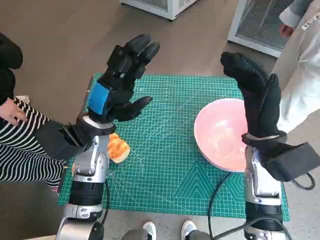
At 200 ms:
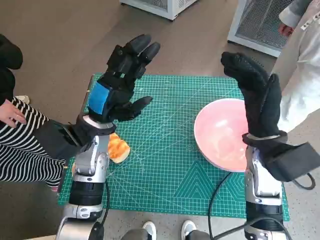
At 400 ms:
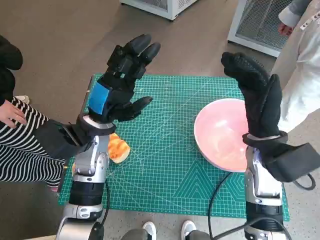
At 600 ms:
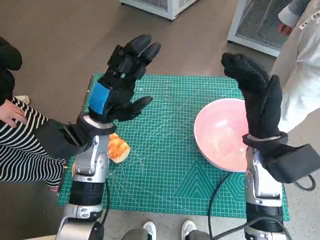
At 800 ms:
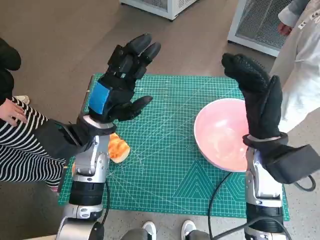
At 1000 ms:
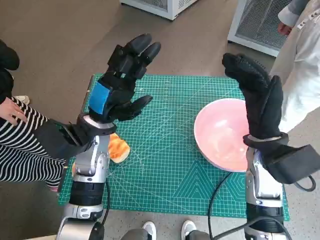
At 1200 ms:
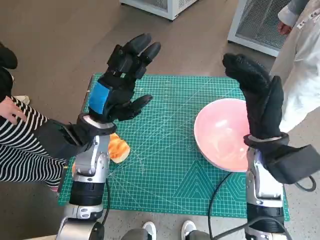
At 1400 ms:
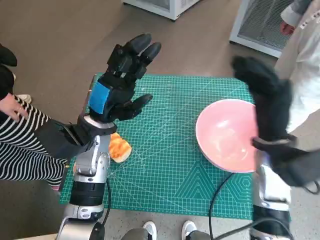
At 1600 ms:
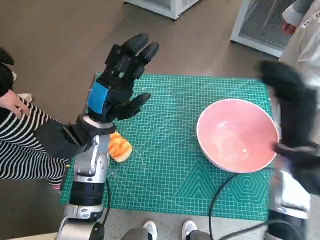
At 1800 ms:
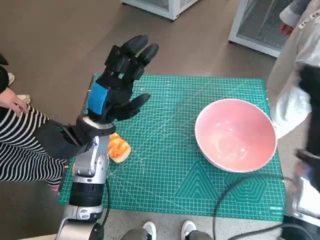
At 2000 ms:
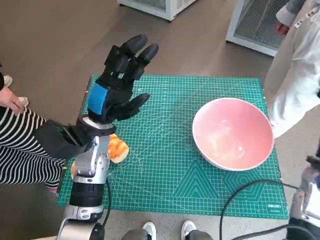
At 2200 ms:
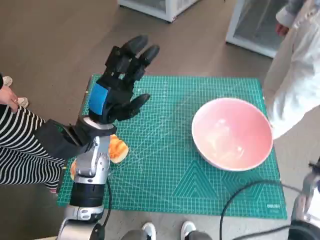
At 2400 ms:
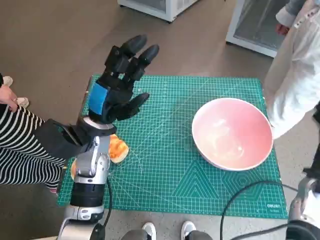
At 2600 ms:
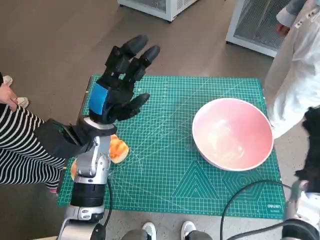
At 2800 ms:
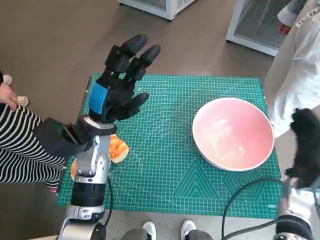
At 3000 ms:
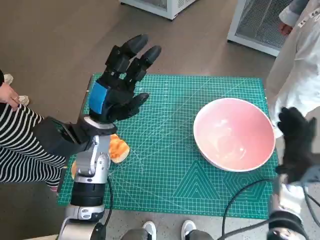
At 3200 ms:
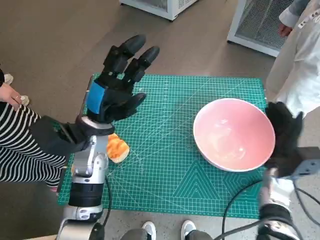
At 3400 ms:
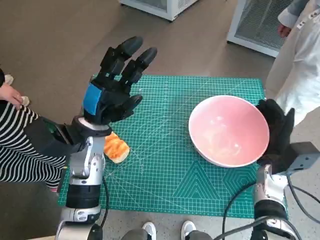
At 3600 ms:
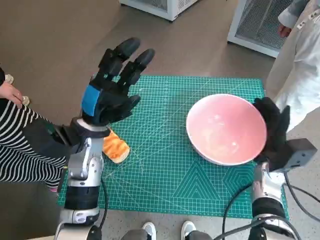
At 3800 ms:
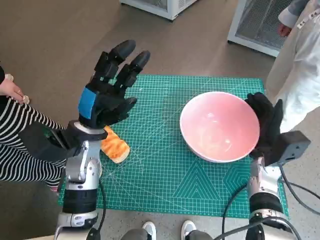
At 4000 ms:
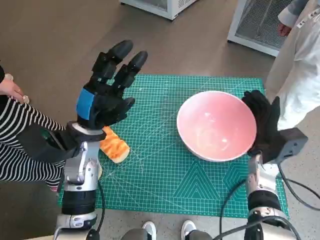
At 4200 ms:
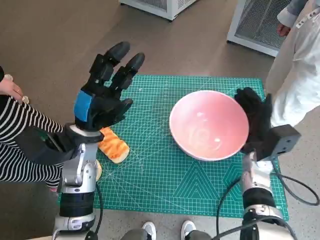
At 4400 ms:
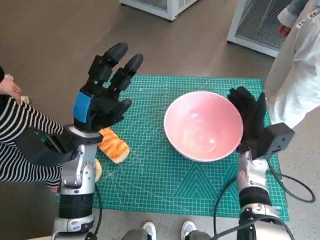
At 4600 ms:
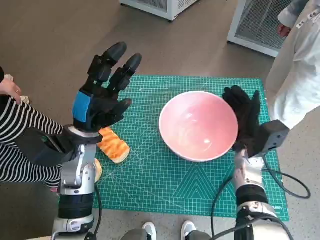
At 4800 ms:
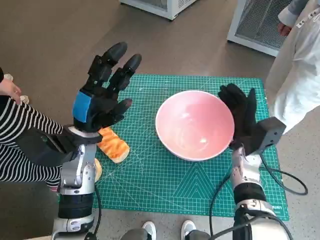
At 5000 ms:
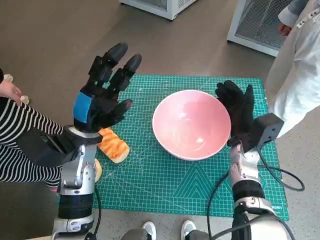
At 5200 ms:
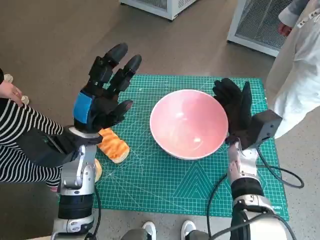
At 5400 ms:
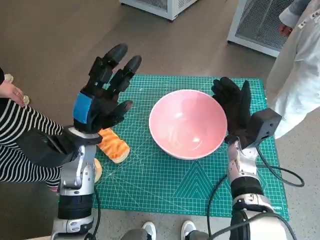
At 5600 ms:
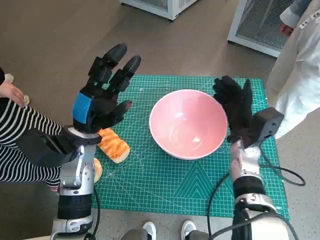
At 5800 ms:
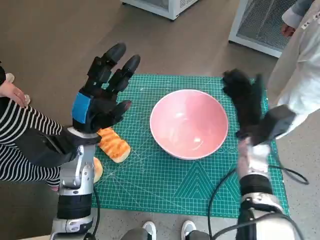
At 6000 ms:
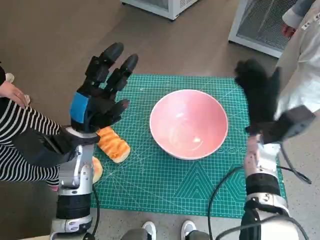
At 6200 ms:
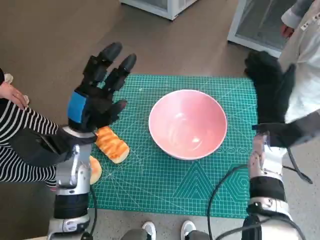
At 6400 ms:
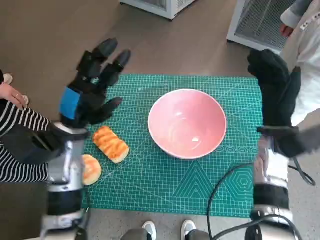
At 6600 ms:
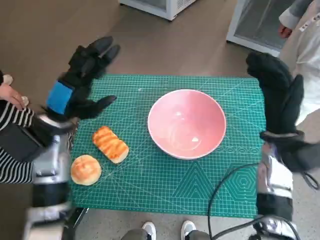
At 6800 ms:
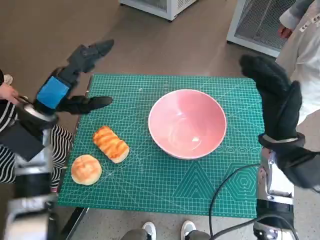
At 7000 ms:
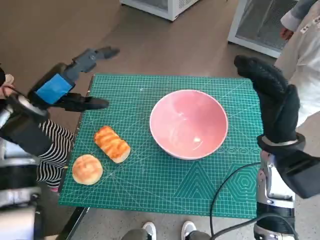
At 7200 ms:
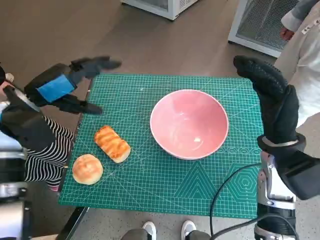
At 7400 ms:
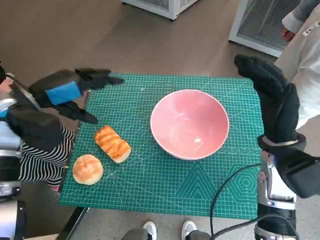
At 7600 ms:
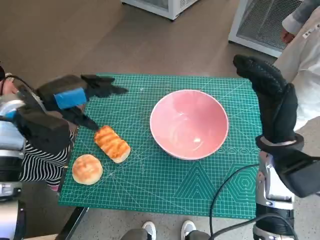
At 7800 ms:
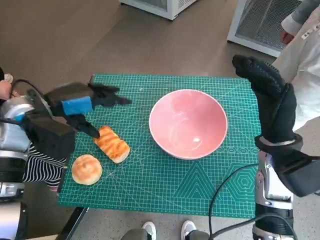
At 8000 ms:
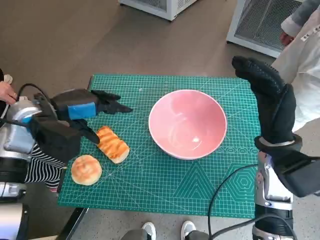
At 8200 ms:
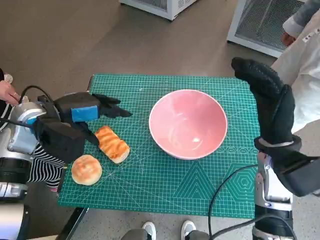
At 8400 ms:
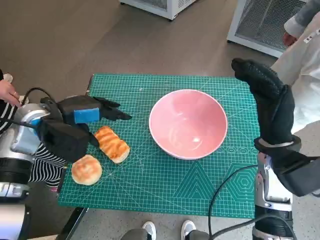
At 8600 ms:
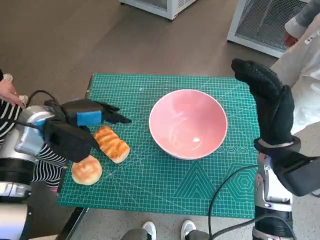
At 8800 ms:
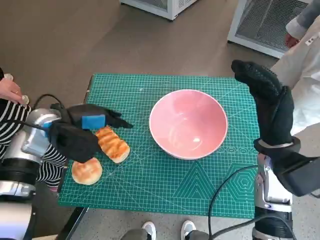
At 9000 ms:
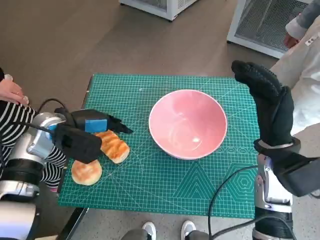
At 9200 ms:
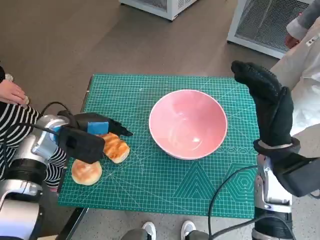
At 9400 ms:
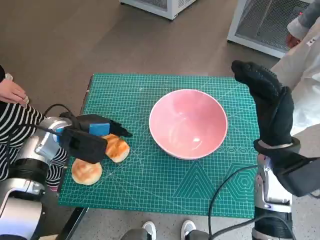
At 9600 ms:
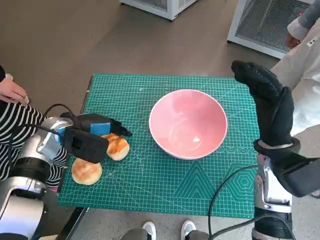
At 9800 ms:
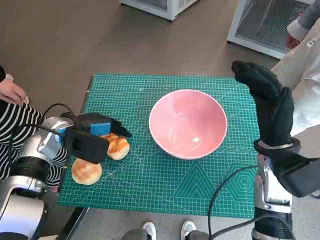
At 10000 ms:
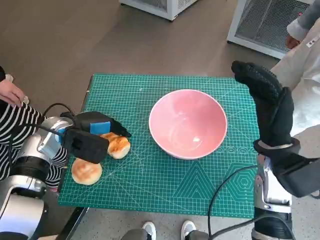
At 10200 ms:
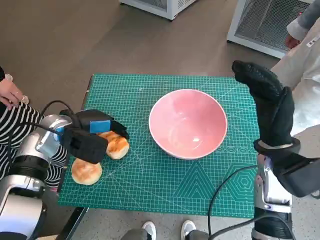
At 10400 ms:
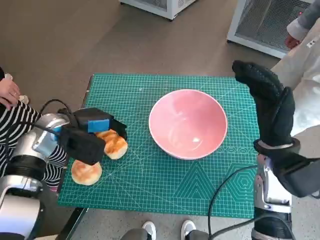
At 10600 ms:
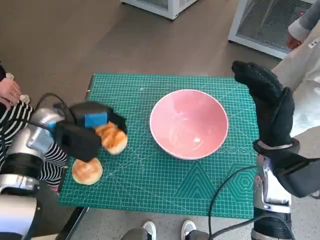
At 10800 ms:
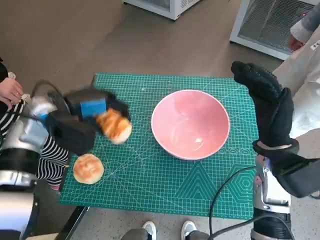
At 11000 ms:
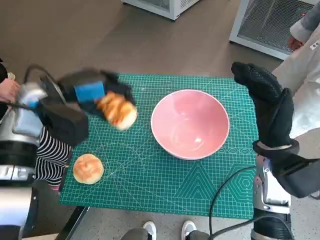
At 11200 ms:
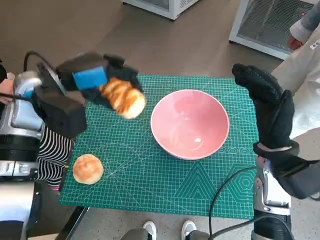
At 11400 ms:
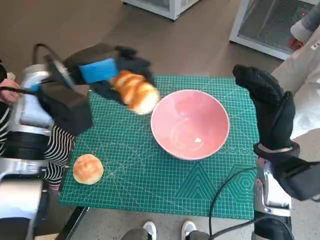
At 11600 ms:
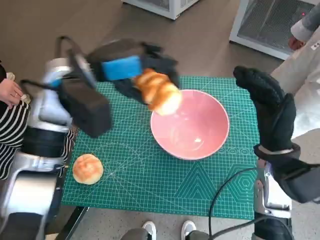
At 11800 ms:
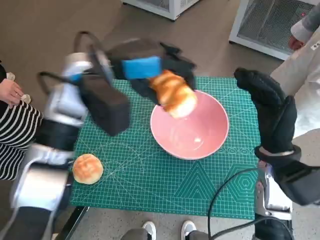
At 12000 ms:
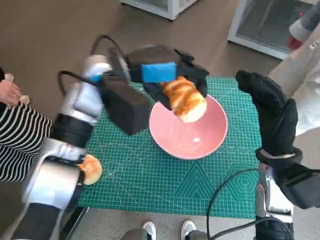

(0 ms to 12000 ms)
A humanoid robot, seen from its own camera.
Task of the whole recording: Push the bowl into the center of the table and put the bread into the bowl.
Step, 0 ms - 5600 ms: Move the pink bowl to the center of table with right hand.
Step, 6000 ms - 10200 ms: Grasp the long bread with left hand.
1600 ms - 3000 ms: The right hand heads downward and to the right, covering about 15 cm.
3000 ms - 4400 ms: The right hand heads to the left, covering some 10 cm.
4400 ms - 6000 ms: The right hand moves approximately 5 cm.
6000 ms - 7600 ms: The left hand is displaced upward and to the left by roughly 10 cm, while the right hand moves upward and backward, some 10 cm.
7600 ms - 9000 ms: The left hand shifts some 5 cm downward.
9000 ms - 10400 ms: The hands stay close to where they were, moving slightly.
10400 ms - 12000 ms: The left hand heads upward and to the right, covering approximately 20 cm.

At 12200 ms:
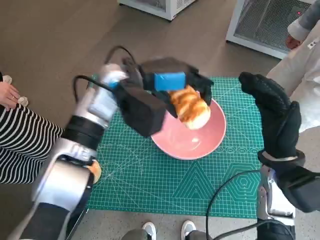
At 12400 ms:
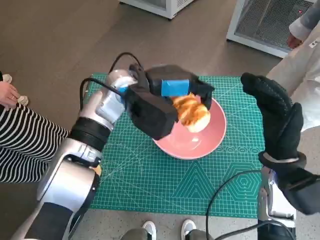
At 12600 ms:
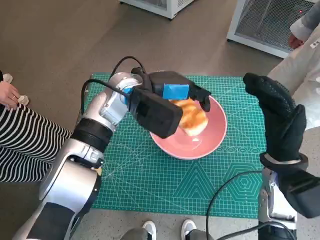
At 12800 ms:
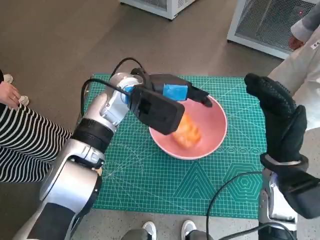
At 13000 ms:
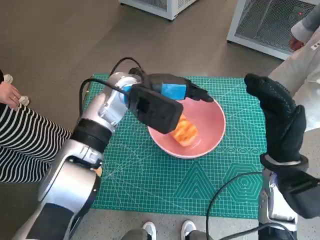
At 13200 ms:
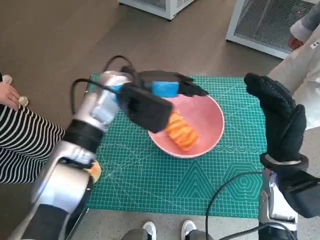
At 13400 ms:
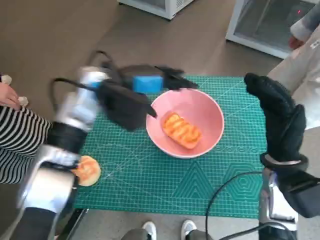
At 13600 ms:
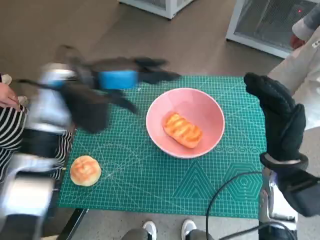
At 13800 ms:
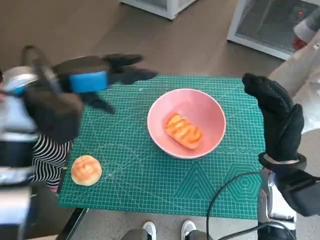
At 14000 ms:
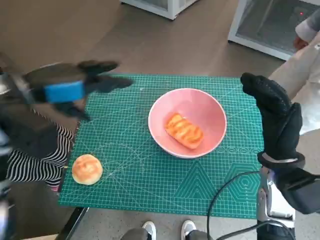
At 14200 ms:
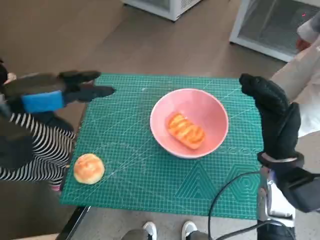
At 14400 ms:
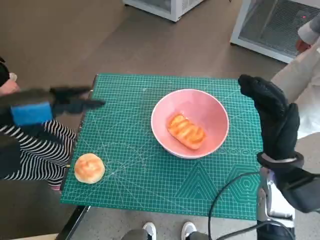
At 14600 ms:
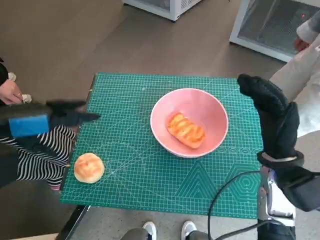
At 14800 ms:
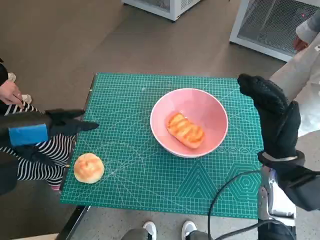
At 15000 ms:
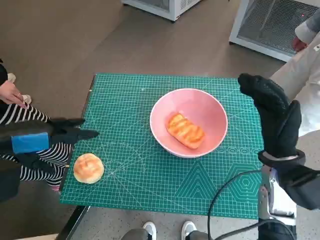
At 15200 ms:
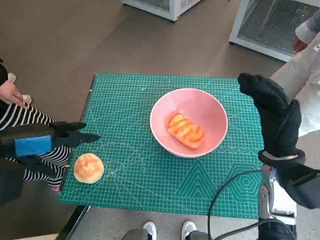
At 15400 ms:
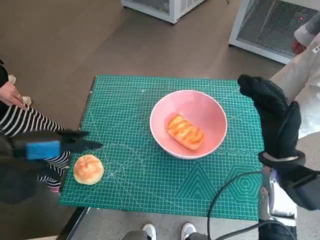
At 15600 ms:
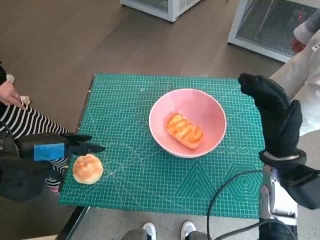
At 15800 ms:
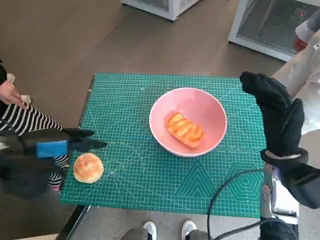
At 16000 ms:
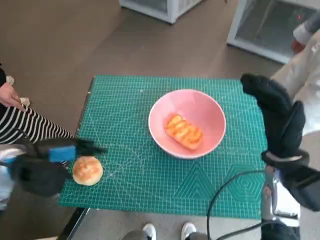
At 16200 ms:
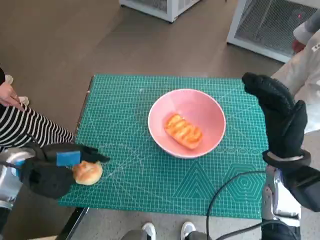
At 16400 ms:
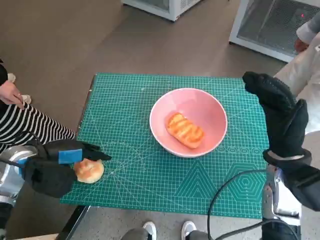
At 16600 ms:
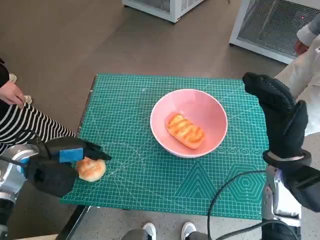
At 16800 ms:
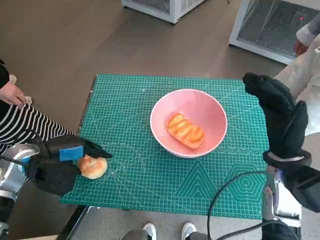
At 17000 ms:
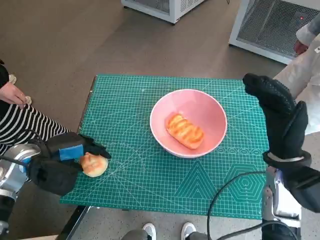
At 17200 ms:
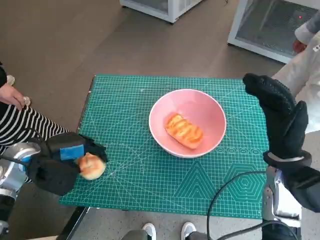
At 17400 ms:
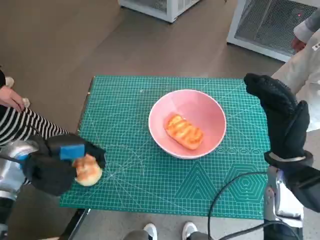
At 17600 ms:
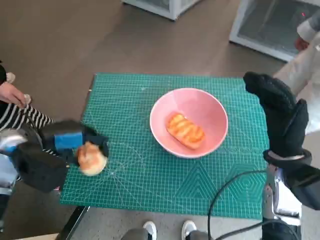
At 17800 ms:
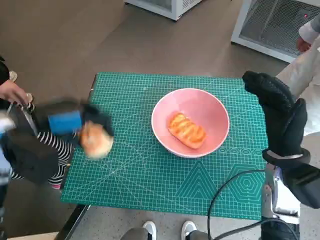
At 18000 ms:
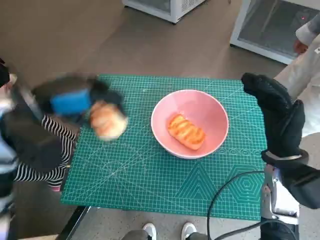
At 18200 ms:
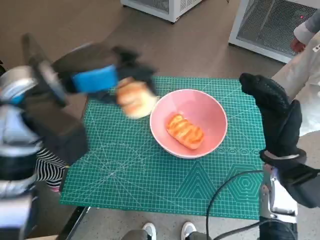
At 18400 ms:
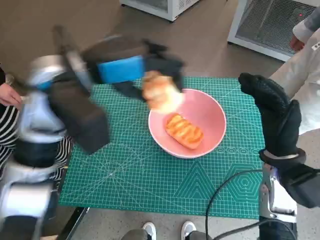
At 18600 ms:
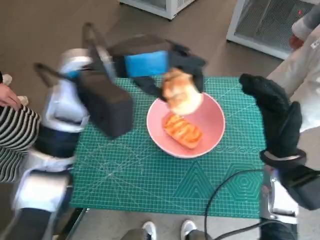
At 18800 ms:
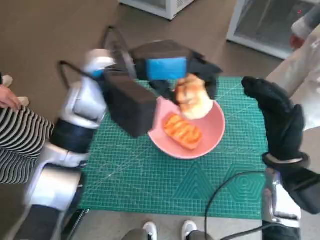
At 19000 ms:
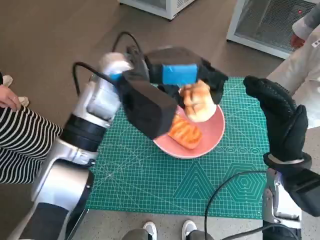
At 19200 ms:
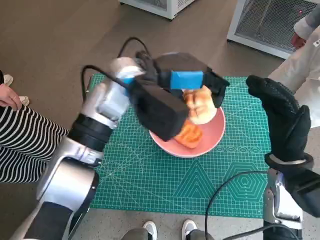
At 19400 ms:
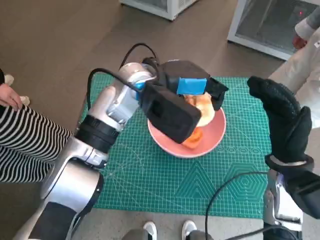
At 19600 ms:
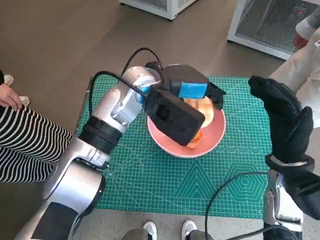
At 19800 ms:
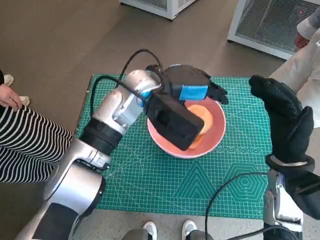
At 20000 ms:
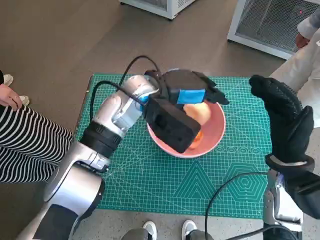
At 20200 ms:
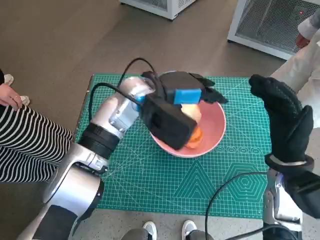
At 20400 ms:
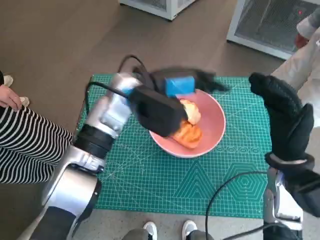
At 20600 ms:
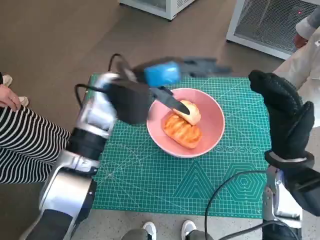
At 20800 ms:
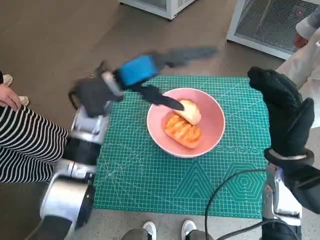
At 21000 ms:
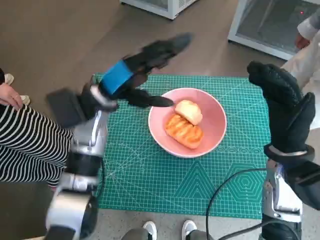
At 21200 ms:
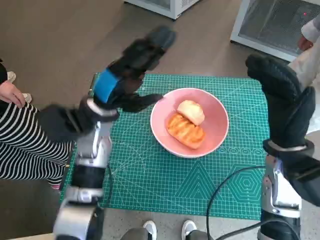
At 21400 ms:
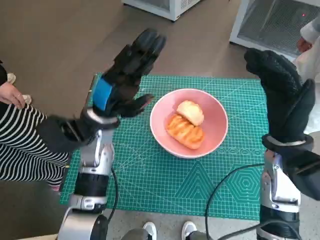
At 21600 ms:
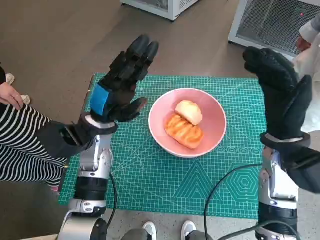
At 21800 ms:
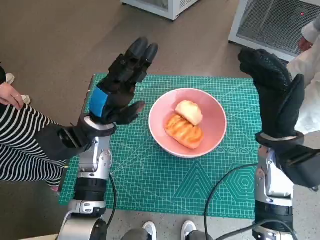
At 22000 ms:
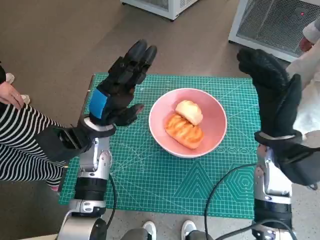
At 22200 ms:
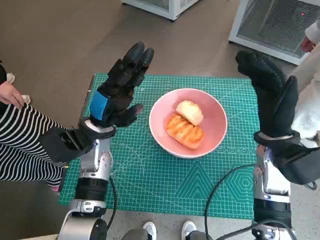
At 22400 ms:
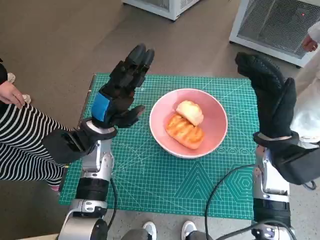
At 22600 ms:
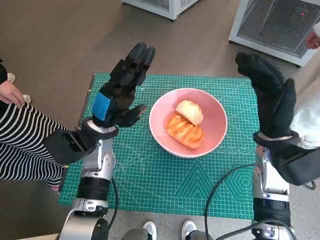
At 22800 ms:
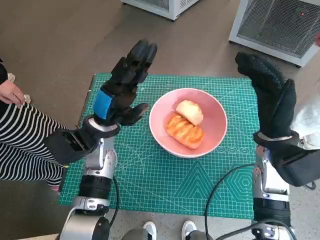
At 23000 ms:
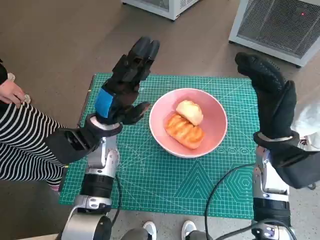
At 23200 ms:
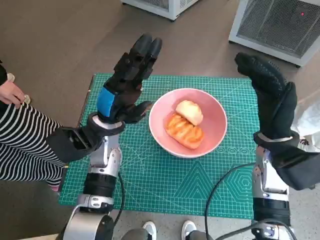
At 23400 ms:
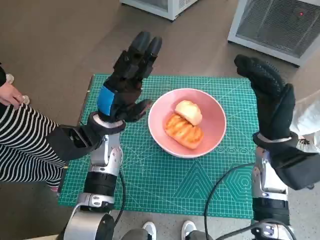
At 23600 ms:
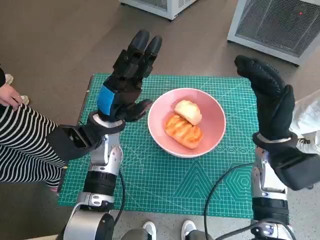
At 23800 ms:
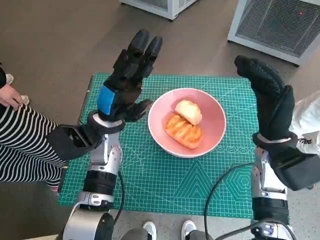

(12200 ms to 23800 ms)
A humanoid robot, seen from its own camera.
Task of the whole recording: Push the bowl into the center of the table and put the bread into the bowl.
Step, 13600 ms - 17000 ms: Grasp the round bread with left hand.
Step, 17200 ms - 20400 ms: Place the round bread in pink bowl with left hand.
12200 ms - 13600 ms: The left hand goes roughly 5 cm to the left.
13600 ms - 15000 ms: The left hand shifts approximately 20 cm to the left and backward.
15000 ms - 16600 ms: The left hand travels downward by some 10 cm.
16600 ms - 18000 ms: The left hand goes some 15 cm upward and to the right.
18000 ms - 19400 ms: The left hand travels to the right and forward by roughly 20 cm.
19400 ms - 21000 ms: The left hand heads to the left and downward, covering about 10 cm.
21000 ms - 22400 ms: The left hand travels downward by roughly 5 cm.
22400 ms - 23800 ms: The hands move only a little.
